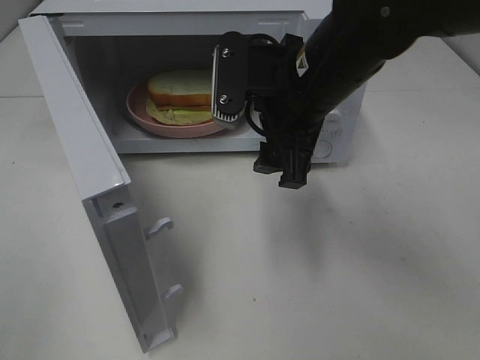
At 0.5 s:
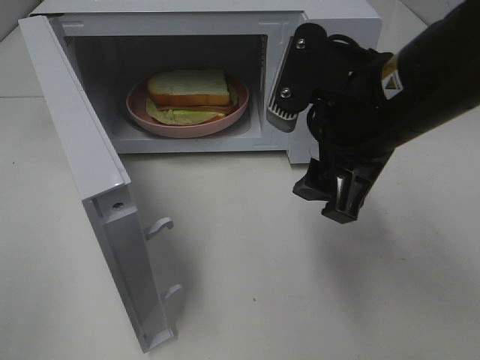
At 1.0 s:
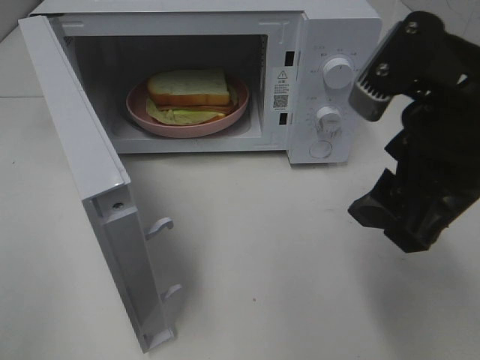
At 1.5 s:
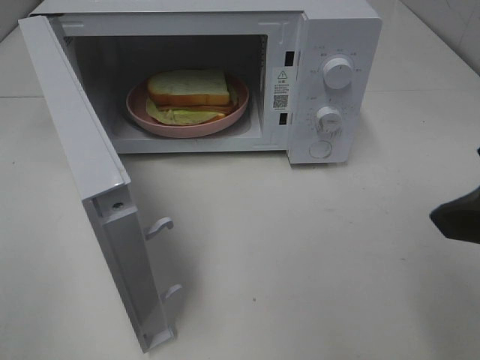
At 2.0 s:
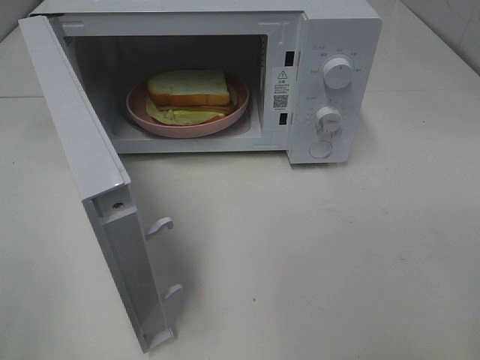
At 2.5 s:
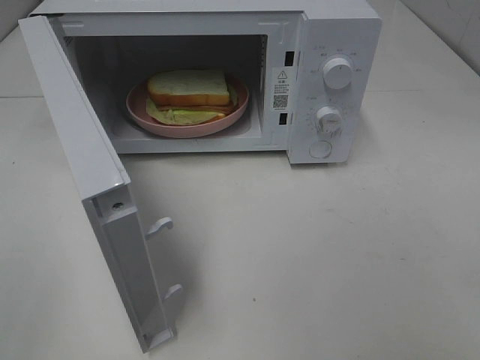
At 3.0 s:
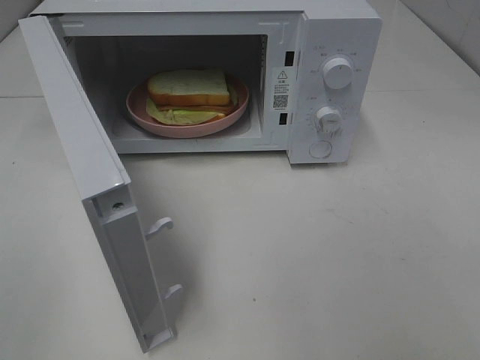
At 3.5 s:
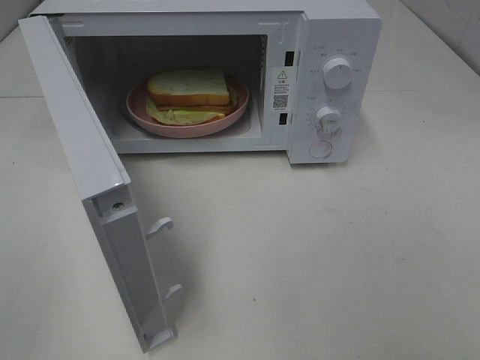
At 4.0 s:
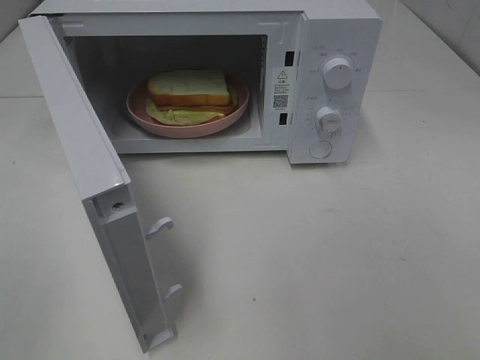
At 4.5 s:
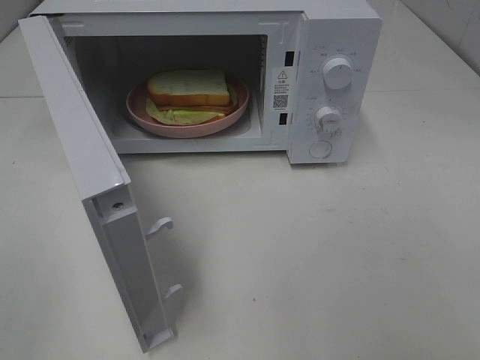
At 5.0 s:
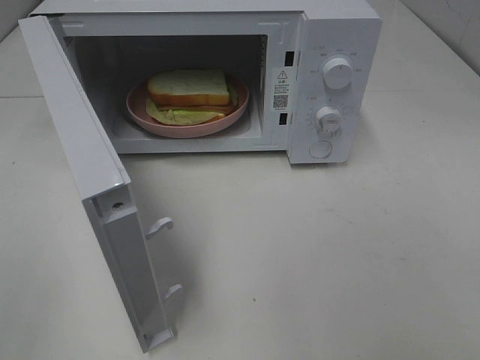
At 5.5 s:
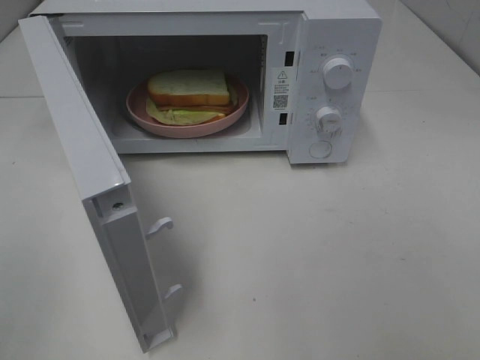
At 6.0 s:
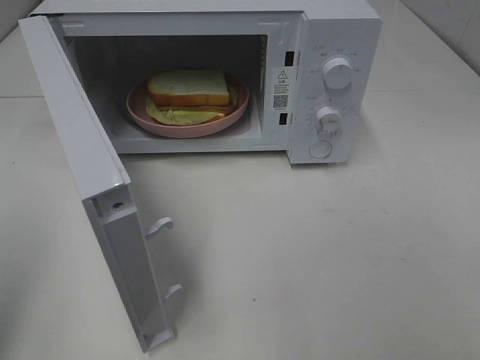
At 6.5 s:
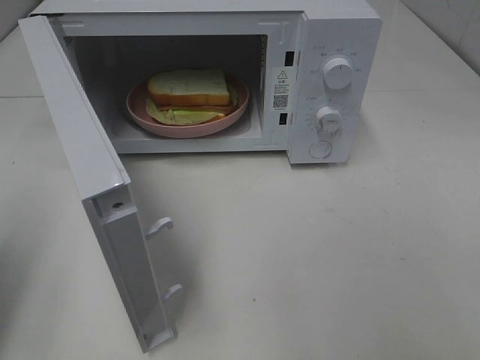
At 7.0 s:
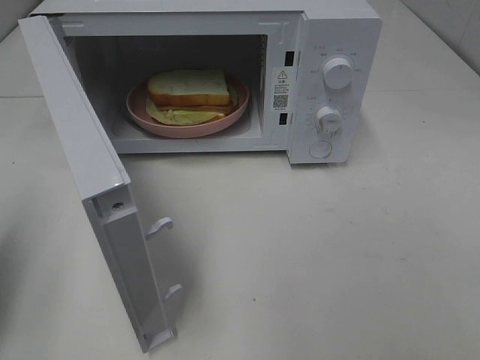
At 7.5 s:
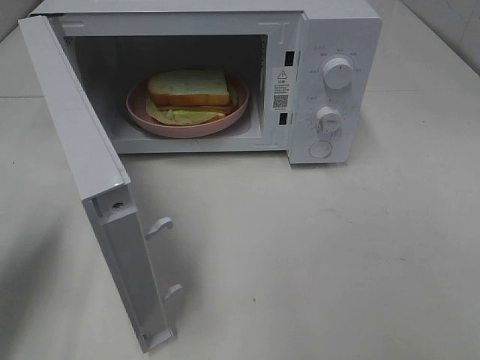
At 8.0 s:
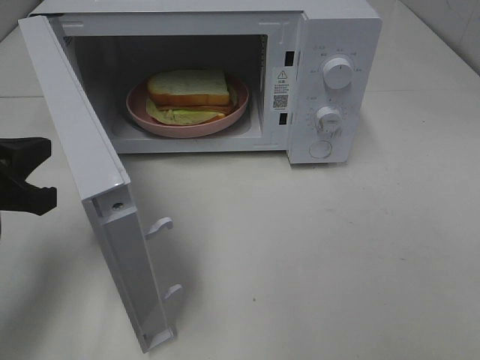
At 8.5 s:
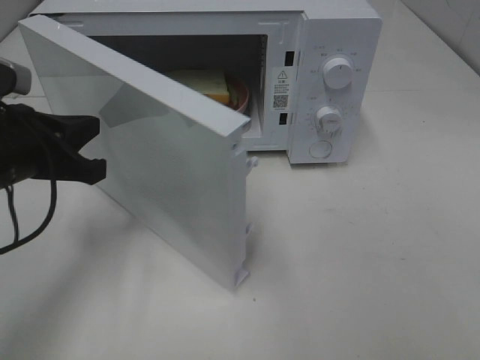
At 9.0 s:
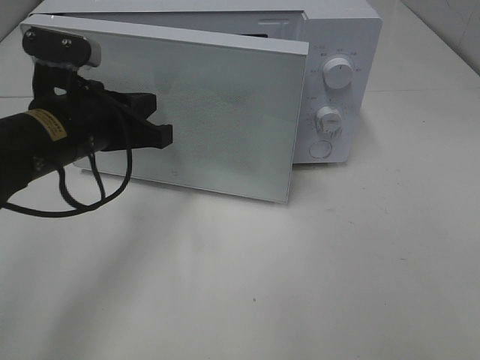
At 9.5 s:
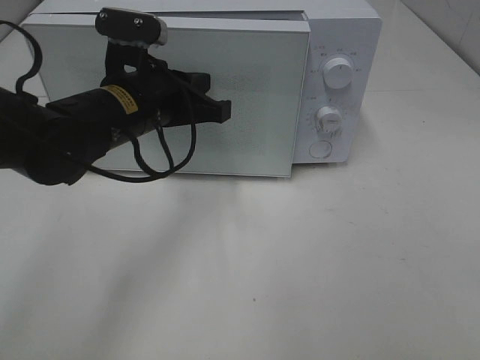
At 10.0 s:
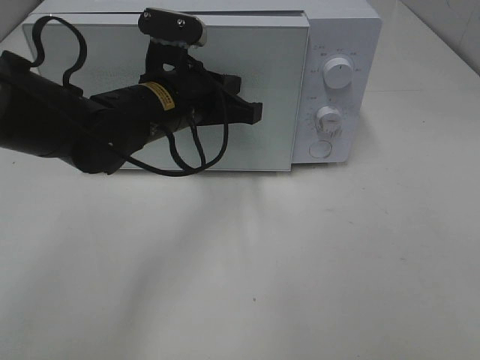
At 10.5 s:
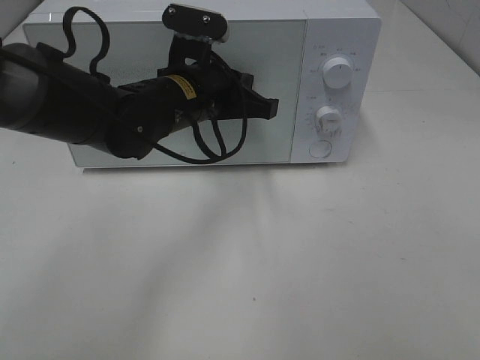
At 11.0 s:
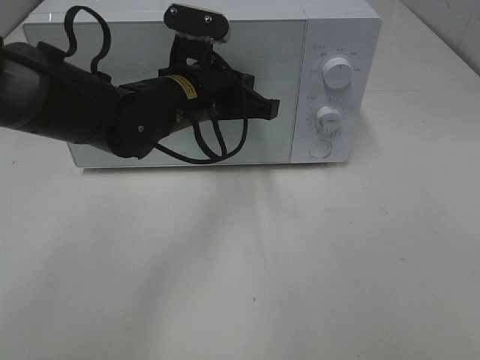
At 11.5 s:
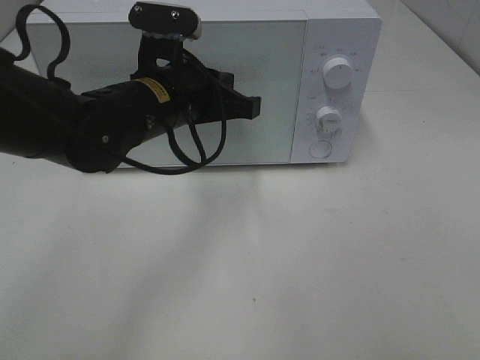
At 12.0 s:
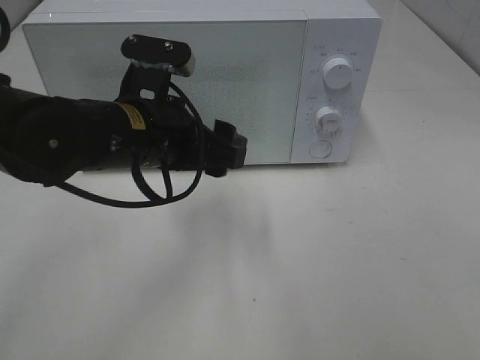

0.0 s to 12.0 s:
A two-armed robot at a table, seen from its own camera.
Task of the whole recording: Heat Sandwich.
Step, 0.0 to 10.5 s: Left hand: close the microwave door.
0.0 to 2.0 s: The right gripper is displaced backward and to the right by some 25 cm.
6.0 to 8.0 s: The left gripper heads forward, downward and to the right, covering some 20 cm.
8.0 to 10.0 s: The left gripper goes about 20 cm to the right and forward.
10.0 to 12.0 s: The left gripper moves backward, some 5 cm, and opens its fingers.

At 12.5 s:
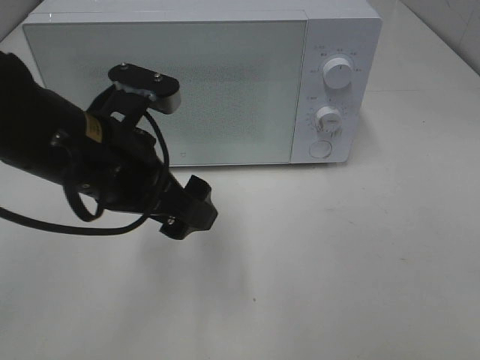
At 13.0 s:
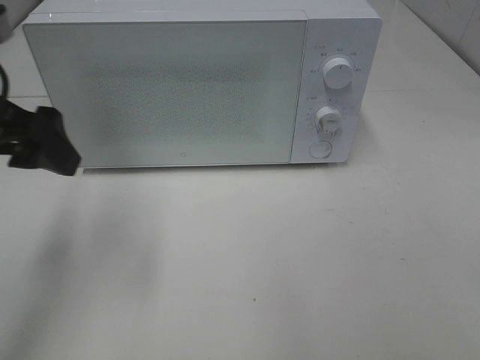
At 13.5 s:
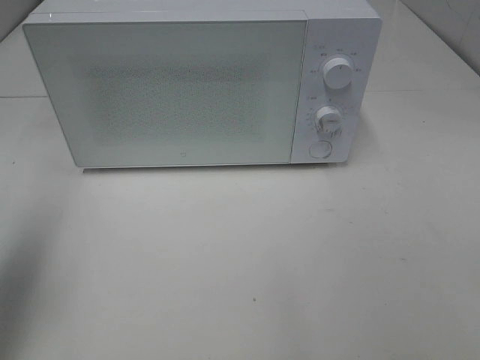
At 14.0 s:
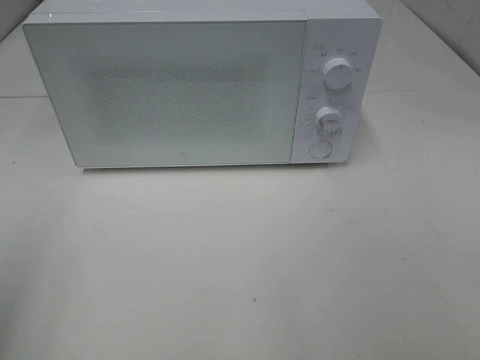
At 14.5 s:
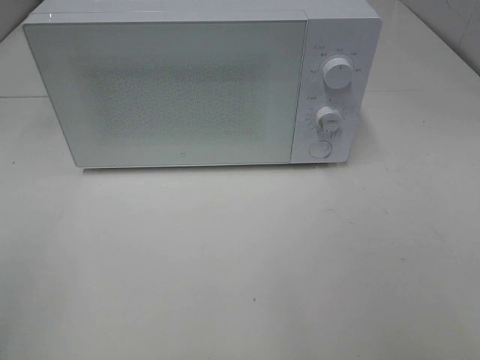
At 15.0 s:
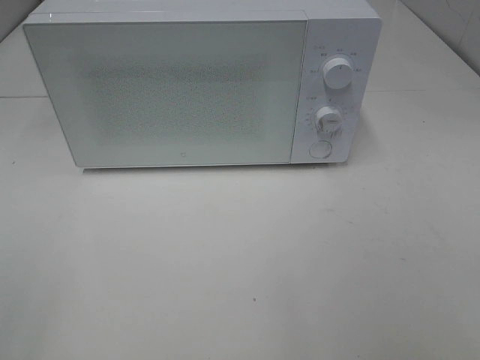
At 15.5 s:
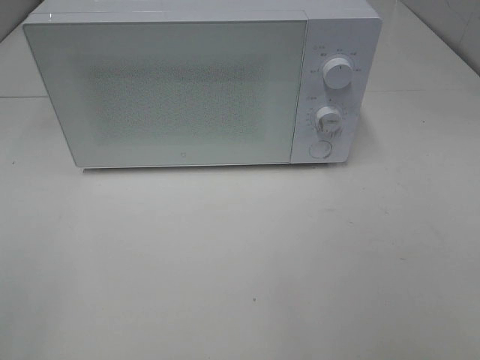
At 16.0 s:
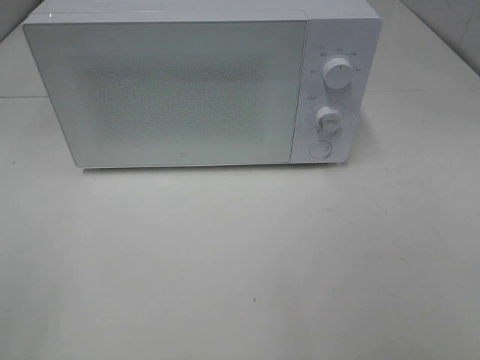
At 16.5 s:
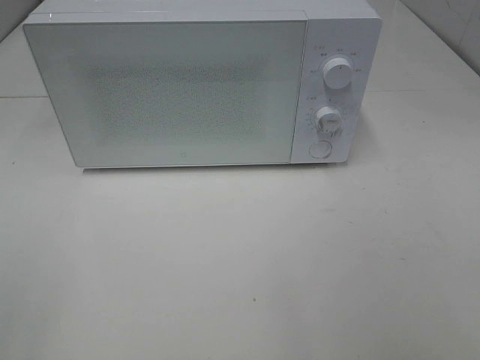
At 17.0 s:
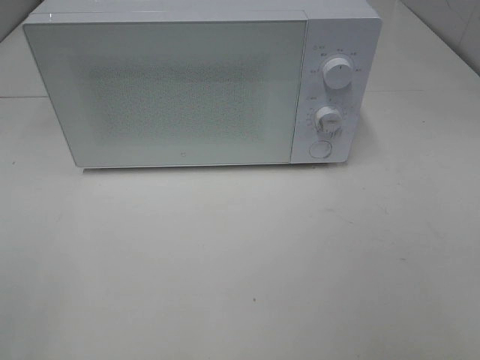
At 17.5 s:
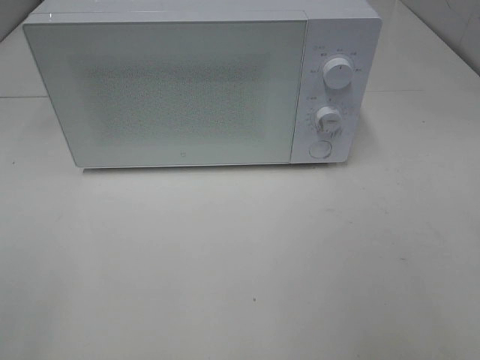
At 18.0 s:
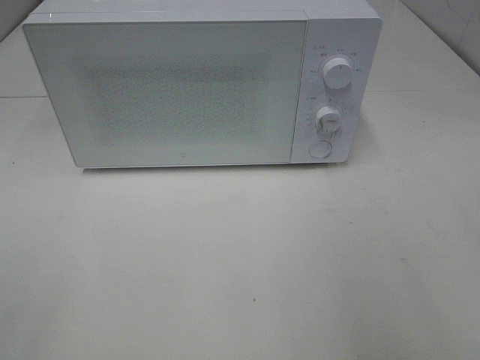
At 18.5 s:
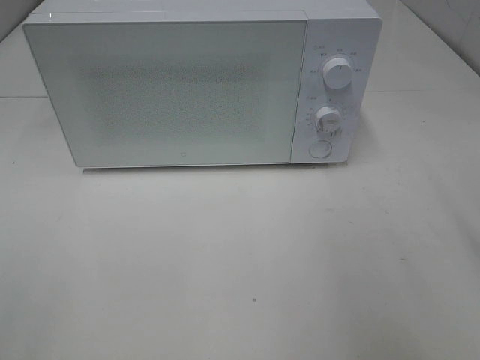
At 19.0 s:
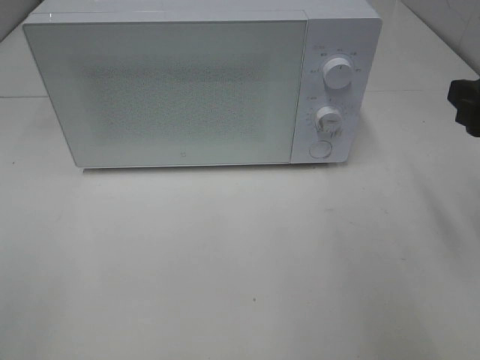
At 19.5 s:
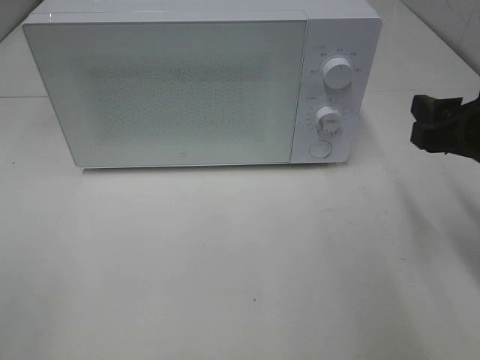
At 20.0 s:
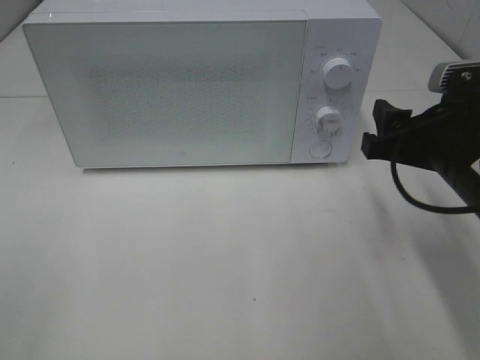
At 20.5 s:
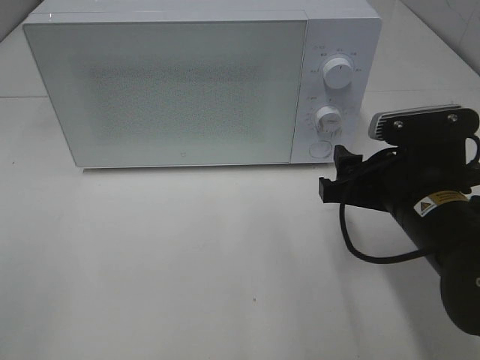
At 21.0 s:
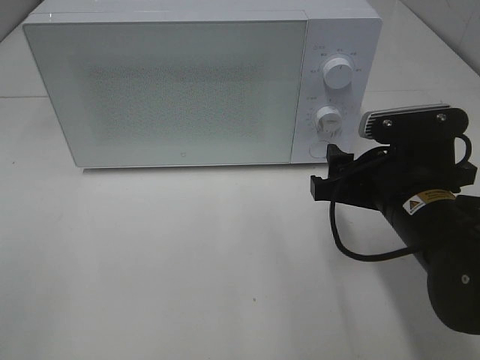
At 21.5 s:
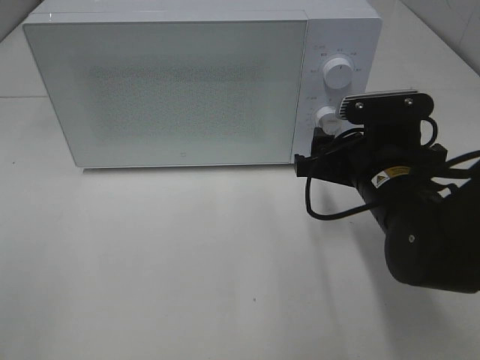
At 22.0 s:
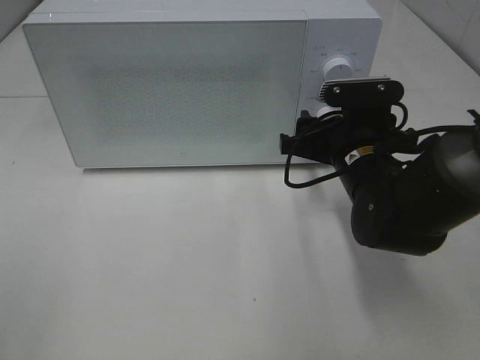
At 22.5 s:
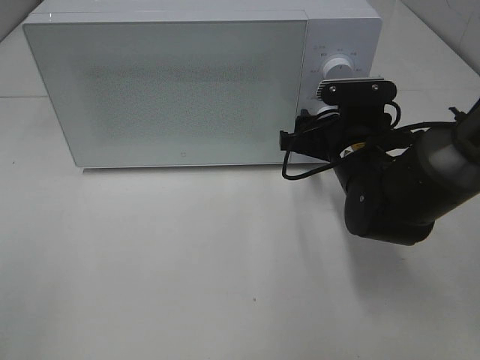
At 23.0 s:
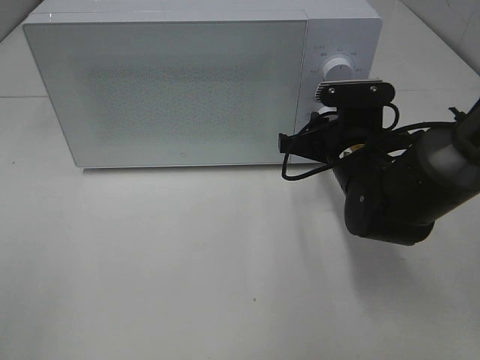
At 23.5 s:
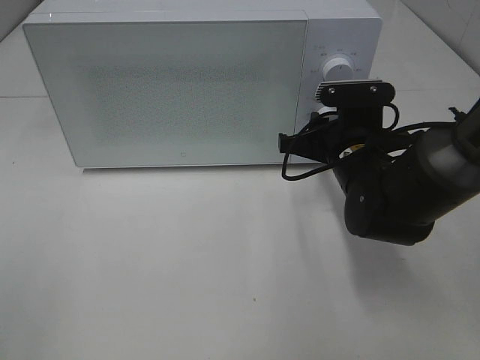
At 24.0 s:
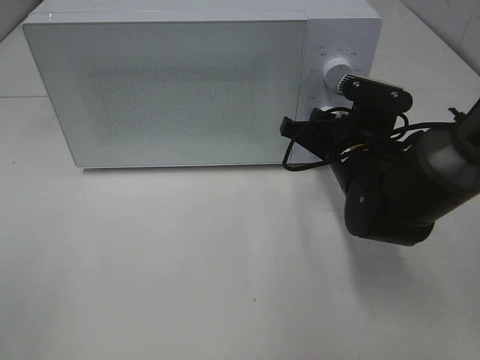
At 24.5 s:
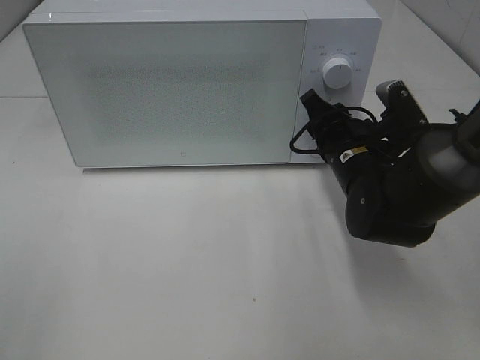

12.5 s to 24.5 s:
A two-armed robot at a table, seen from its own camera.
Task of the whole recording: Heat Sandwich.
12.5 to 14.5 s: The left gripper heads to the left and backward, covering some 30 cm.
18.5 to 20.5 s: The right gripper heads downward and to the left, covering some 20 cm.
20.5 to 22.5 s: The right gripper goes some 10 cm forward.
22.5 to 24.5 s: The right gripper closes its fingers.

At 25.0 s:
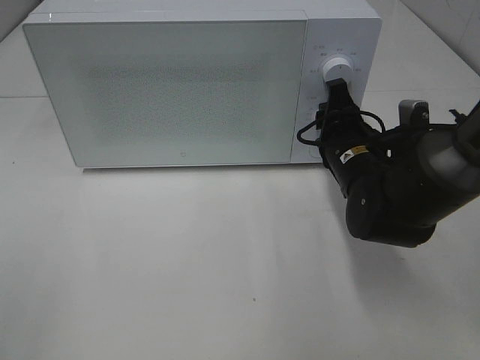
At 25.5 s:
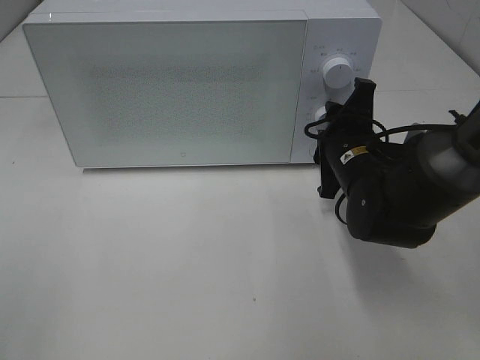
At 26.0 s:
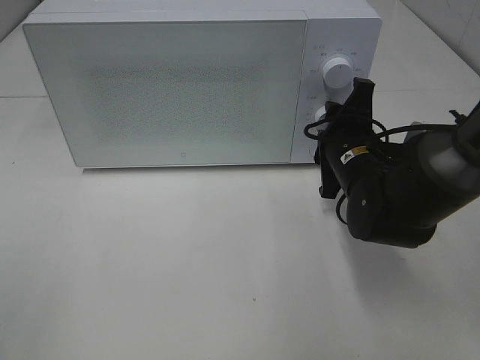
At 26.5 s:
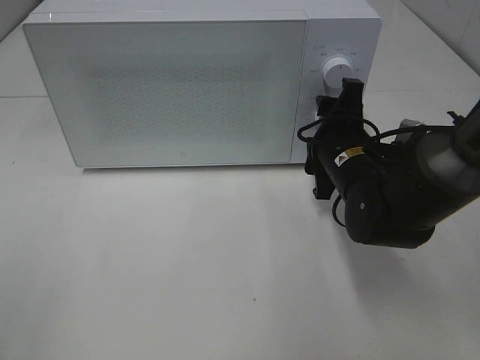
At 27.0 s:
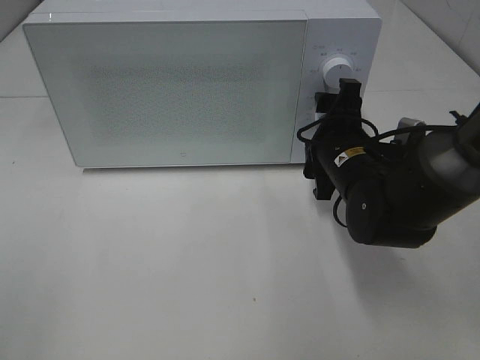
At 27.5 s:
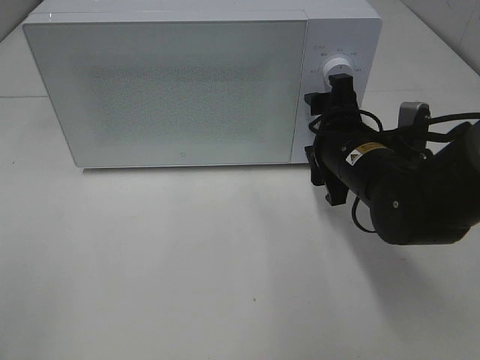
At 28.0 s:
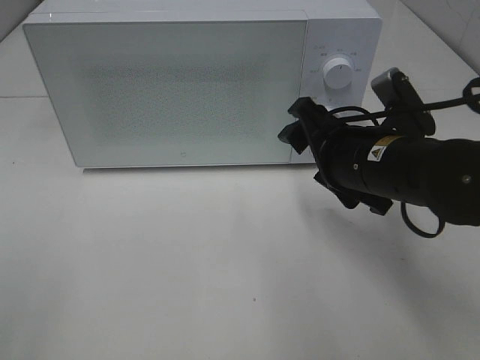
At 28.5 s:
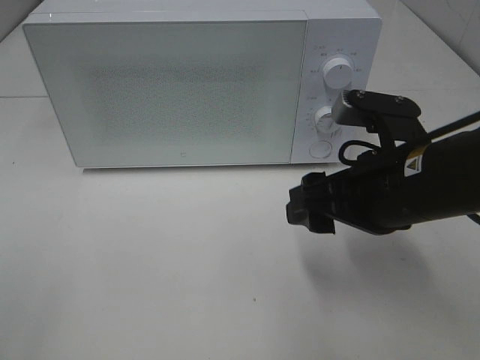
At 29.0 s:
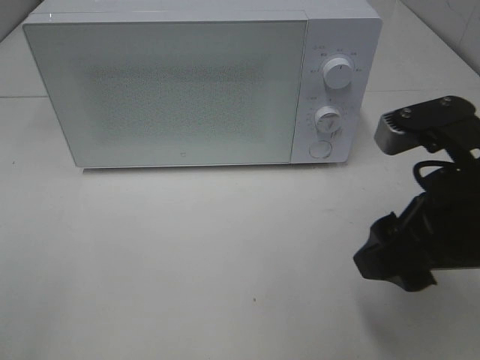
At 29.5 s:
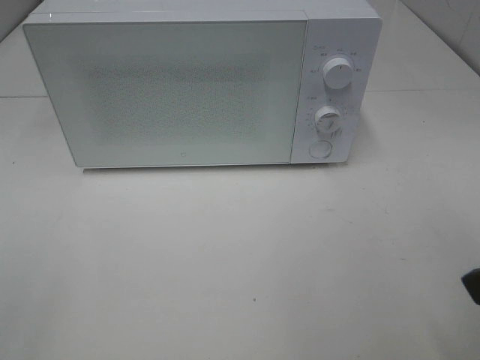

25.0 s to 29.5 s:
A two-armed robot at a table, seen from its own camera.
Task of the whole recording: Heat Sandwich.
25.0 to 27.0 s: The right gripper opens its fingers.
27.0 to 29.5 s: The right gripper moves backward, upward and to the right, roughly 30 cm.
